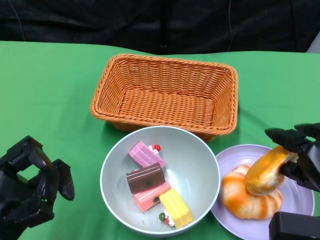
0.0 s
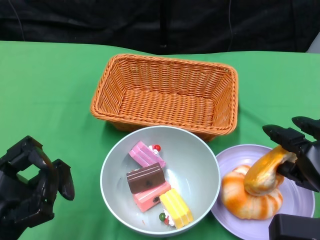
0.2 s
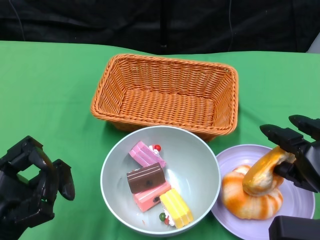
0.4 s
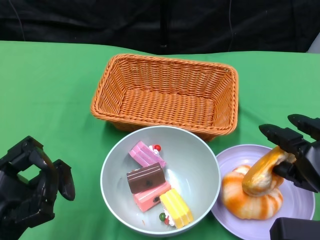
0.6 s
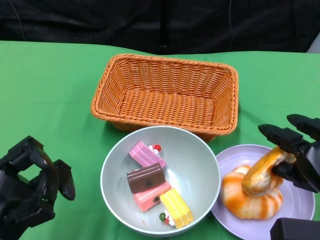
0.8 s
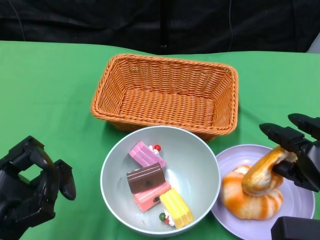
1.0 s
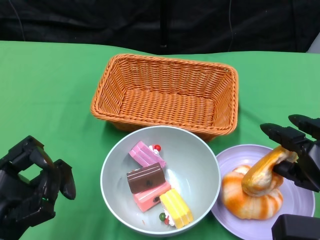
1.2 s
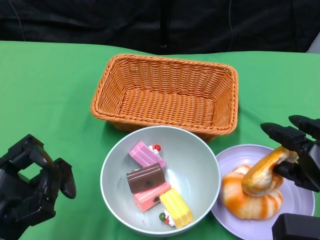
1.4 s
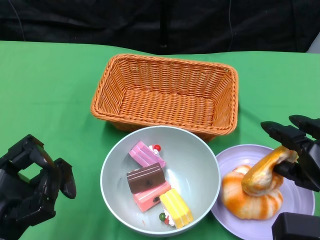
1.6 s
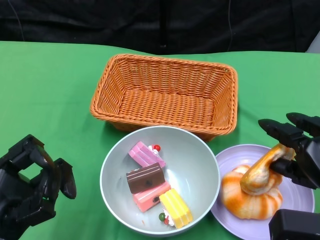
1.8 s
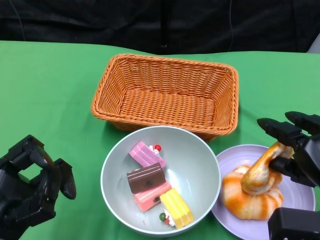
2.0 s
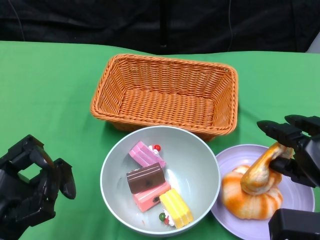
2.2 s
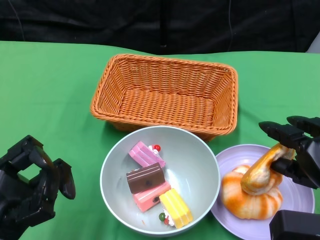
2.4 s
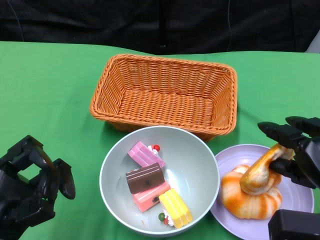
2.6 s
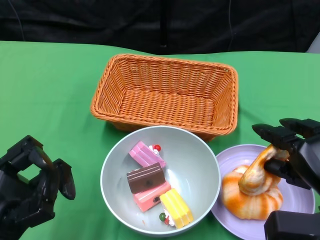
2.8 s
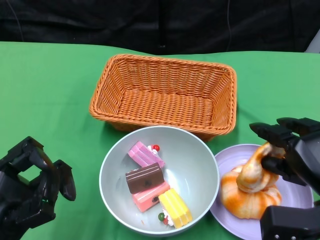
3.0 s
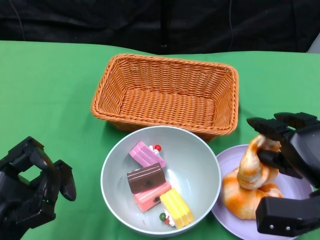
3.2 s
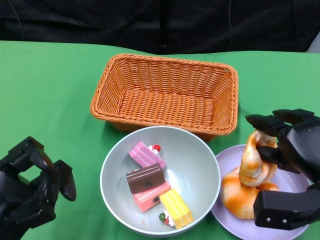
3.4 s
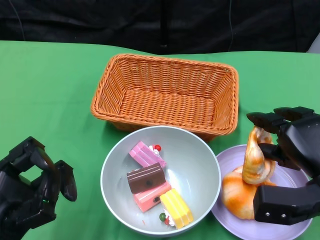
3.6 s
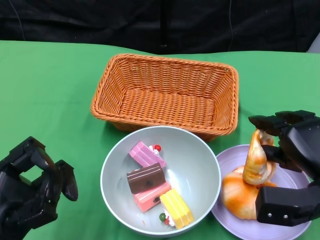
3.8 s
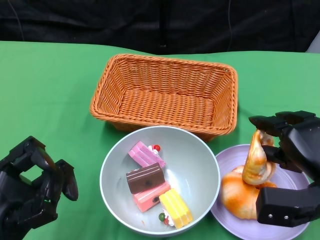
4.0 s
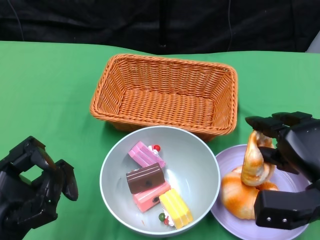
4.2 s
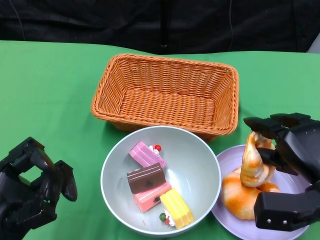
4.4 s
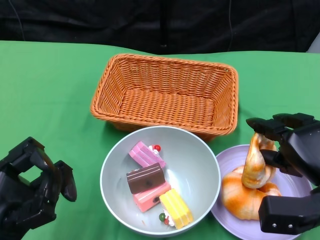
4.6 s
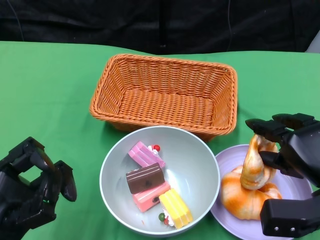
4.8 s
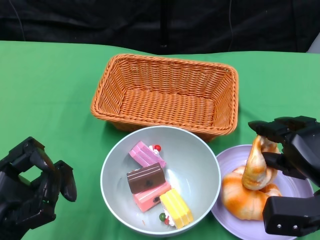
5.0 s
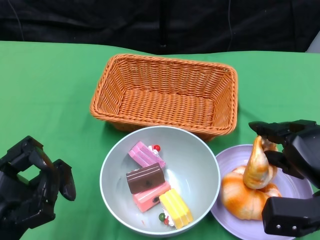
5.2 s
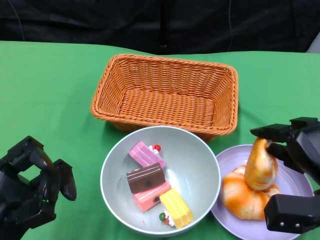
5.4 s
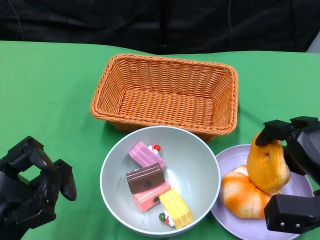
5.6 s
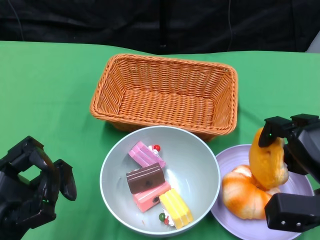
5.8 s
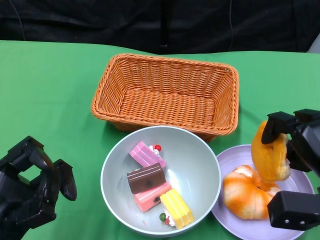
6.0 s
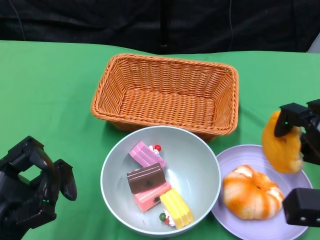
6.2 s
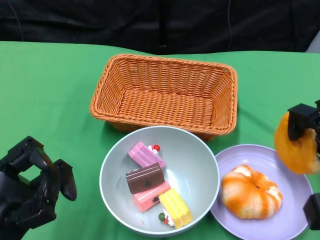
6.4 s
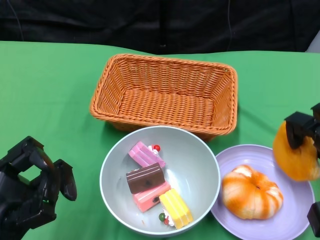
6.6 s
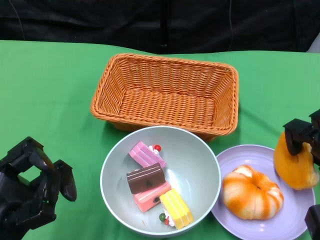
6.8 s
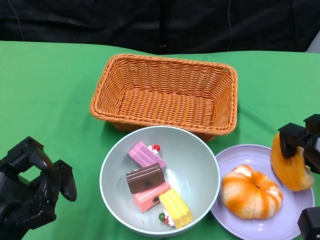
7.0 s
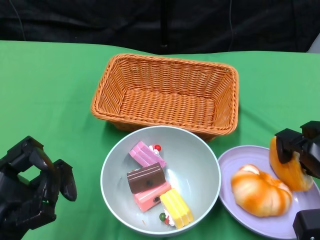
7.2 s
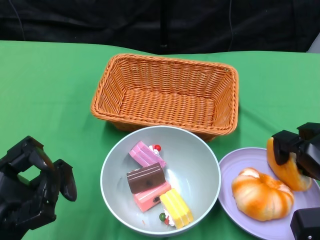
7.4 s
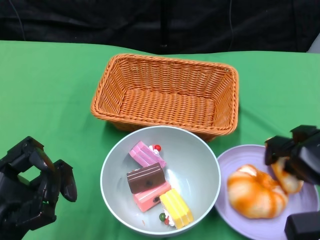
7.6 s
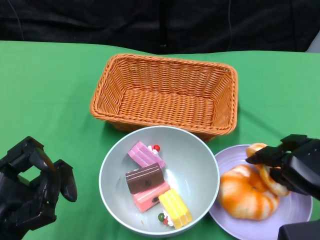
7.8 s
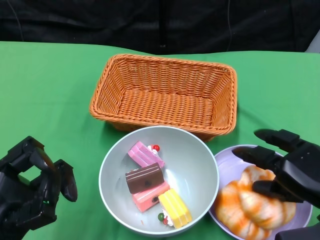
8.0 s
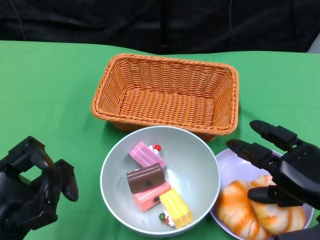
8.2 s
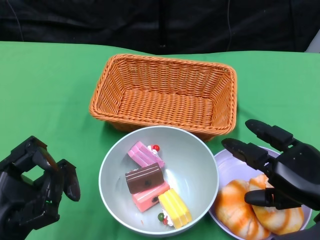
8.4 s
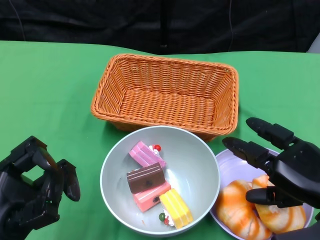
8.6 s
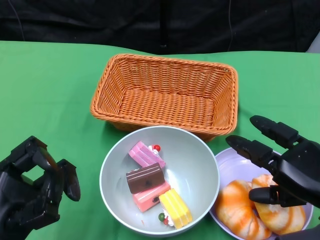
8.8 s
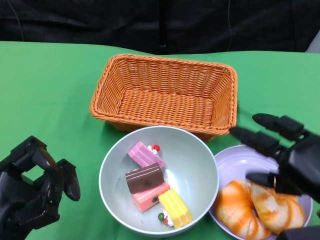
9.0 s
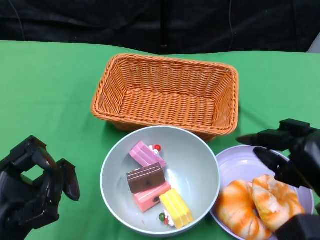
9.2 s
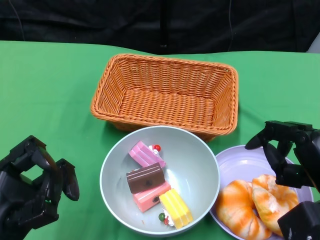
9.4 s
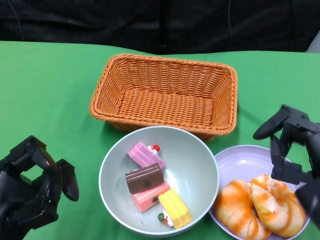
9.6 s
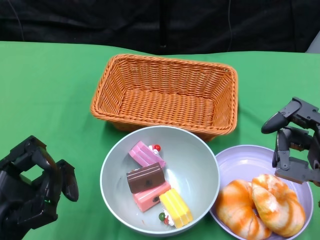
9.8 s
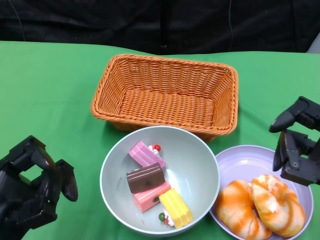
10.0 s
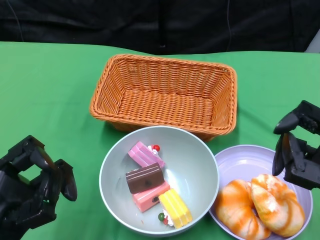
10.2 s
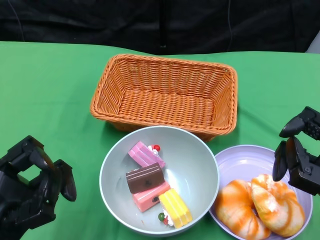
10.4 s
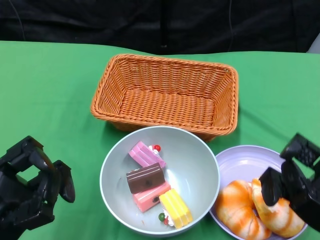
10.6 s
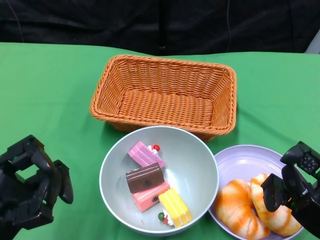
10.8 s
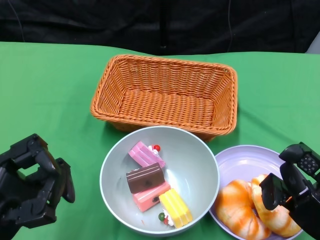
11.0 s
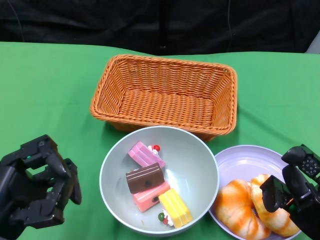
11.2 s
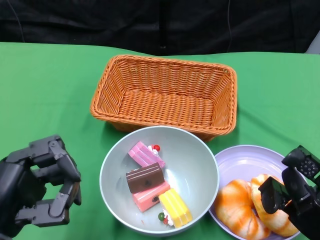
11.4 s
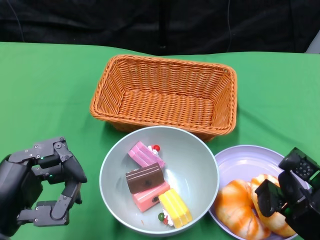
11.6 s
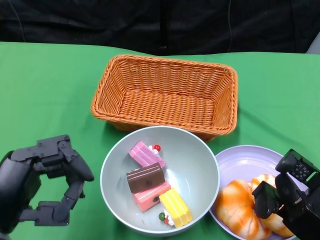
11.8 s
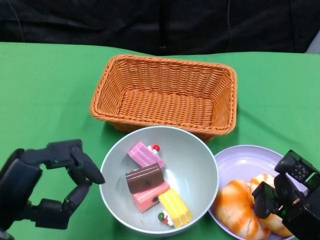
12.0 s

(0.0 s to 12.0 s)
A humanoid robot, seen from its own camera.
Step, 0.0 s - 8.4 s: Pick up the bread with the right gripper and place it on the plate.
0.0 s - 7.6 s: The hands make only small movements.
7.6 s - 9.0 s: The right hand ends up some 5 cm from where it was.
9.0 s - 10.4 s: The right hand shifts by approximately 5 cm.

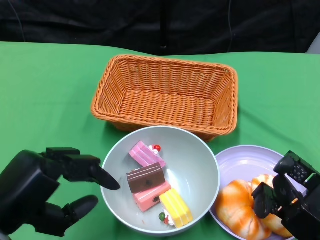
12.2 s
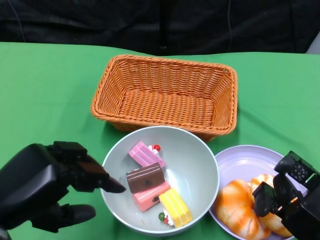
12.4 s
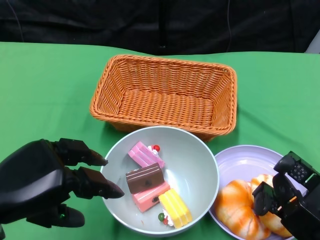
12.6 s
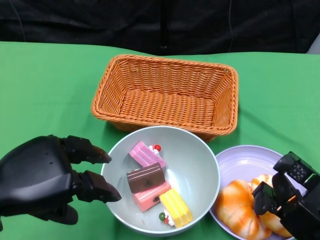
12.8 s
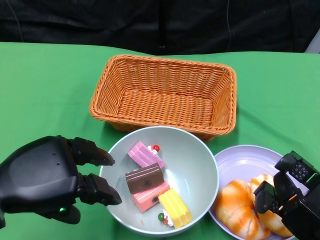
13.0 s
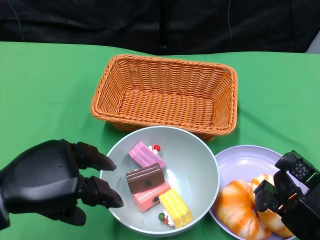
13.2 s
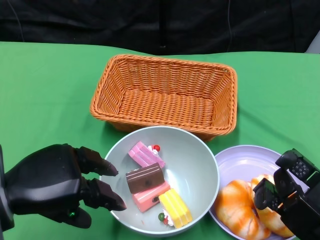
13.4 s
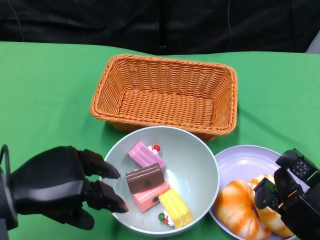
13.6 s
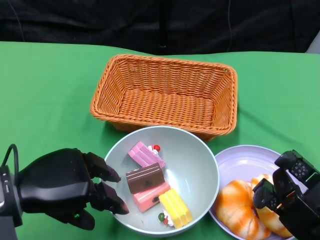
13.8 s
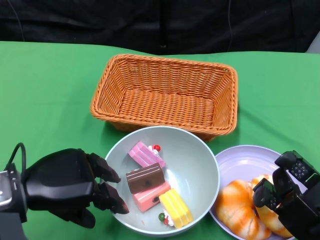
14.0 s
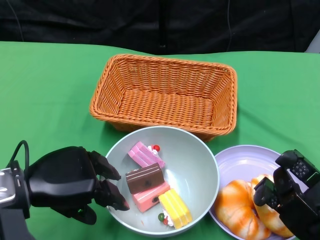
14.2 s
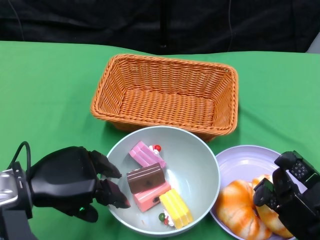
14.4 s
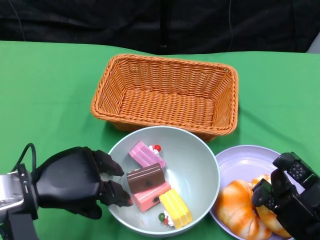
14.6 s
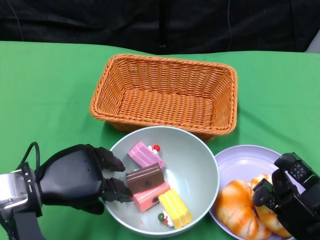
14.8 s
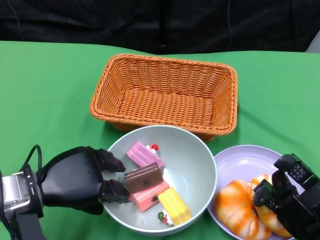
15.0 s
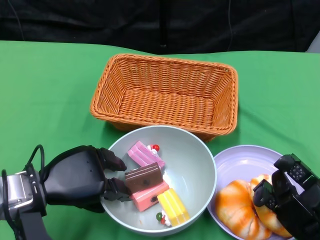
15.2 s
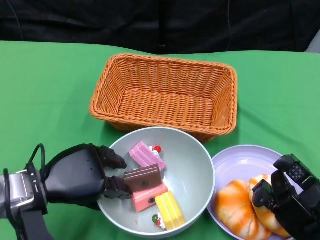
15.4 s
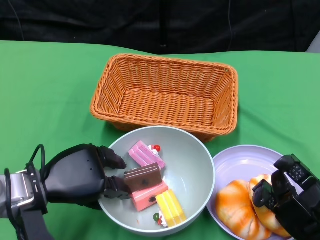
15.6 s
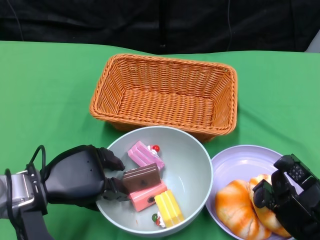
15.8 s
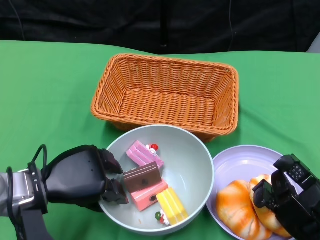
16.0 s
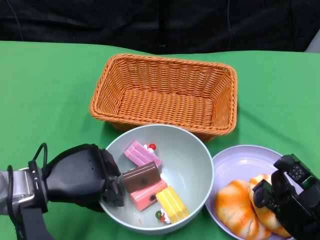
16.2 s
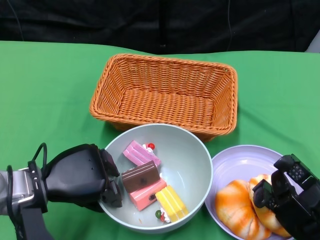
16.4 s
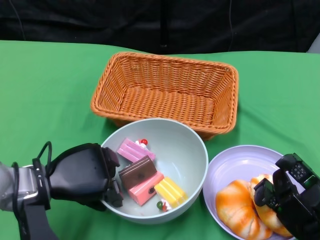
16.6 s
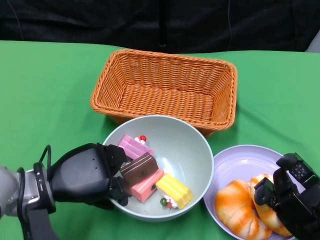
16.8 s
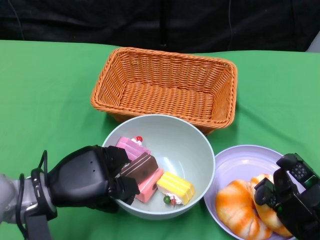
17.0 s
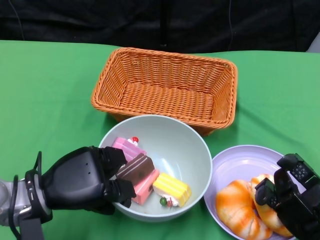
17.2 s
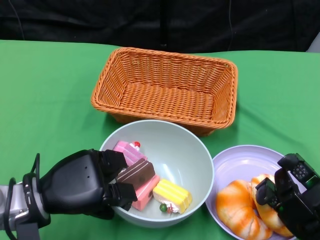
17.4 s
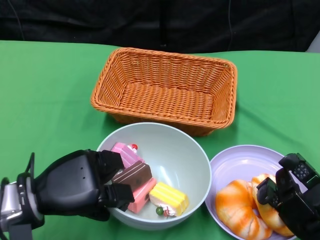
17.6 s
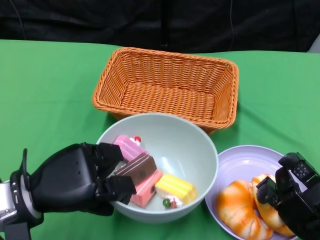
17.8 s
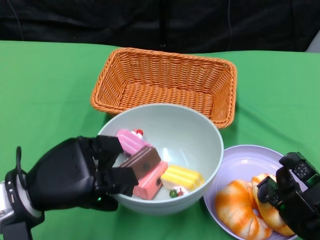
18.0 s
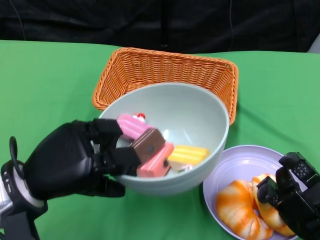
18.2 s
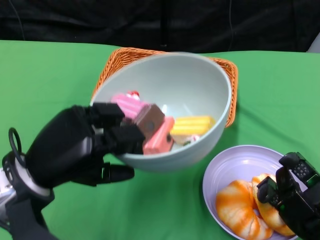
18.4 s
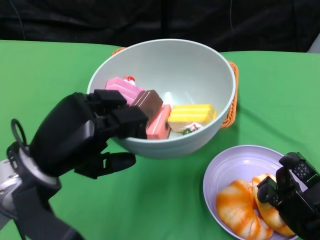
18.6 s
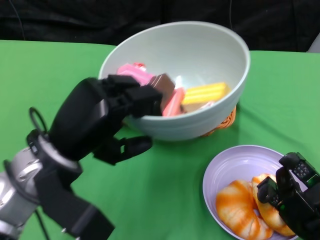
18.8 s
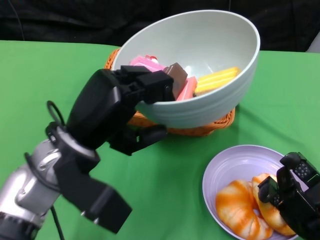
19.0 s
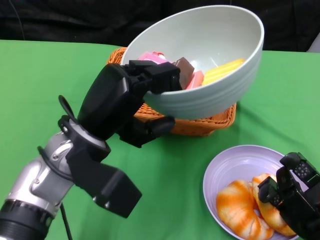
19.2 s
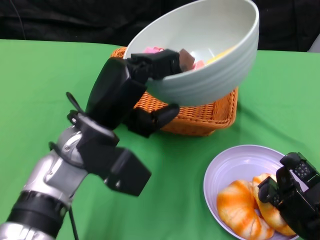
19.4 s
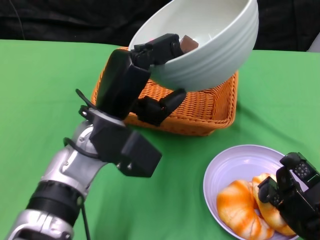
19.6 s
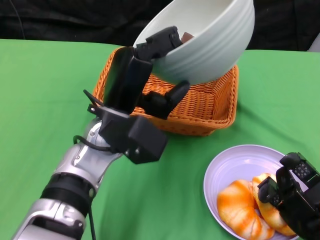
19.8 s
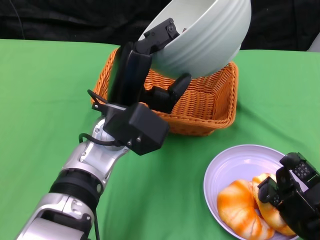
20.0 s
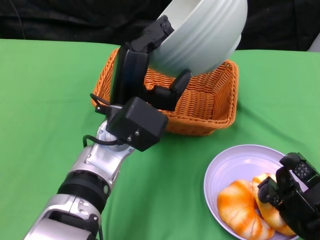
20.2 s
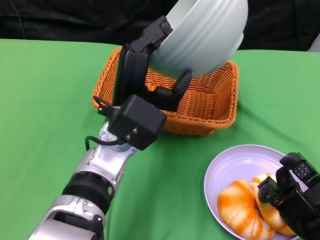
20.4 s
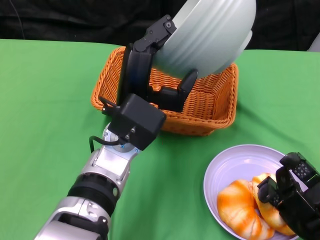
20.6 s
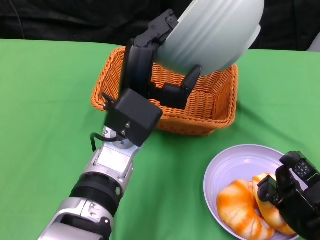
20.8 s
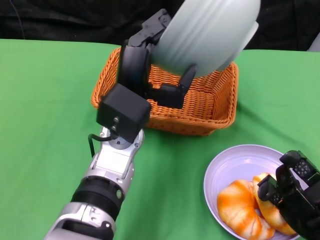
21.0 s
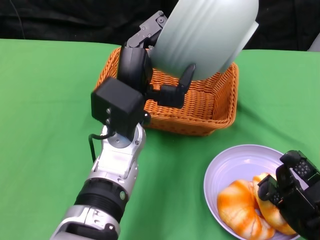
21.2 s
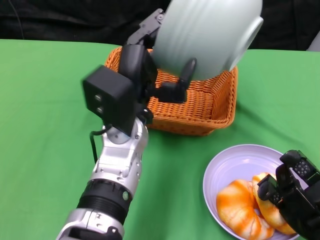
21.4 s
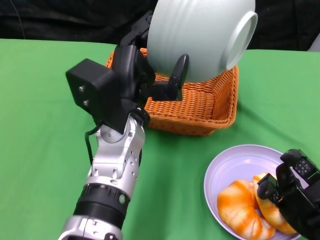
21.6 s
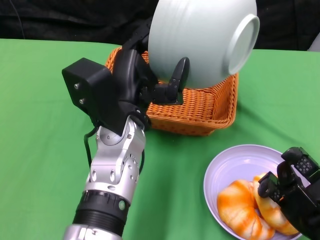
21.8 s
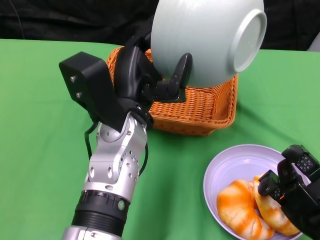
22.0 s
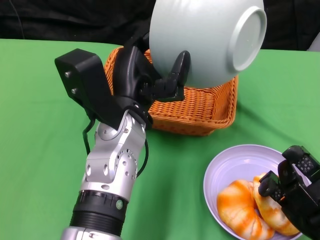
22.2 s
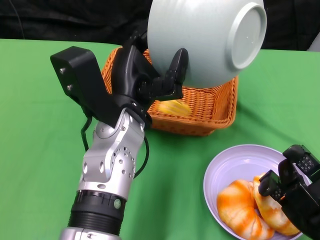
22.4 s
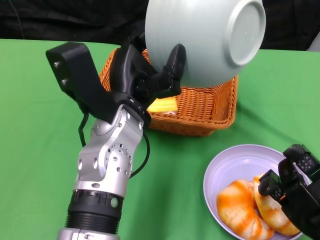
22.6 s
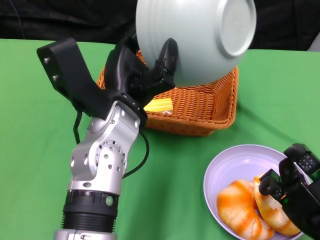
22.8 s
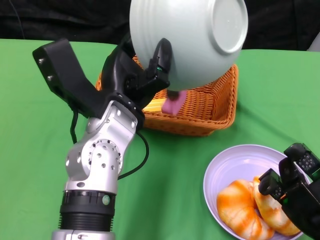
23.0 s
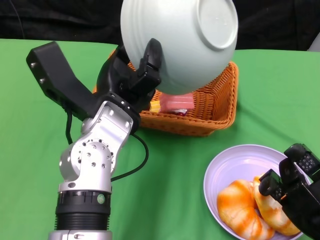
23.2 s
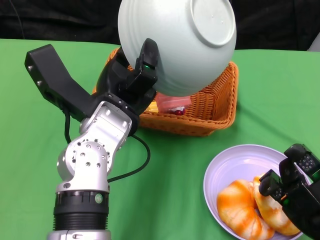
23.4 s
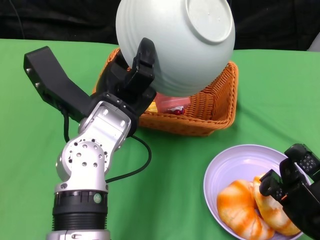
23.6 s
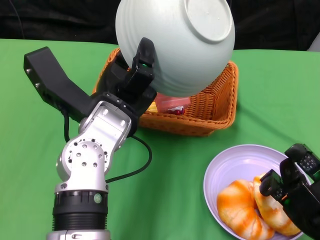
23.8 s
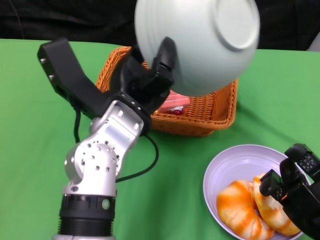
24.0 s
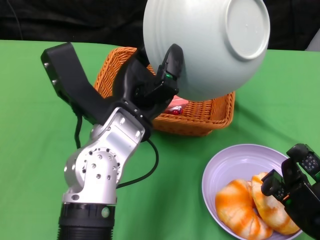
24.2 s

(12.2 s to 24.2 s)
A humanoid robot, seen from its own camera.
Step, 12.2 s - 16.6 s: Grasp the bowl with the left gripper.
Step, 17.0 s - 23.8 s: Pour the cake into the basket with the left gripper.
12.2 s - 13.8 s: The left hand is displaced forward by some 5 cm.
13.8 s - 15.2 s: The left hand shifts by approximately 5 cm.
15.2 s - 16.6 s: The hands stay close to where they were, moving slightly.
16.6 s - 18.2 s: The left hand changes place by about 5 cm.
18.2 s - 19.8 s: The left hand shifts some 15 cm to the right and forward.
